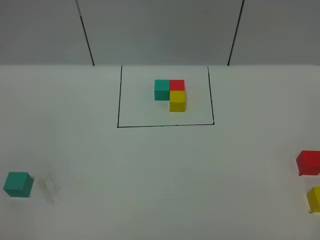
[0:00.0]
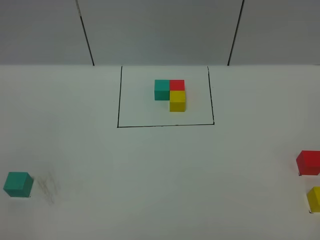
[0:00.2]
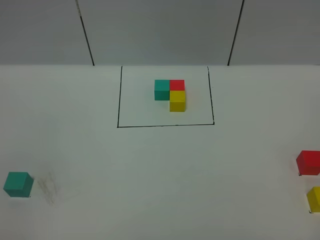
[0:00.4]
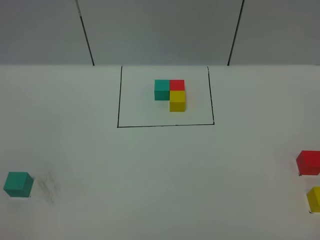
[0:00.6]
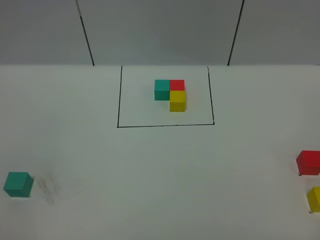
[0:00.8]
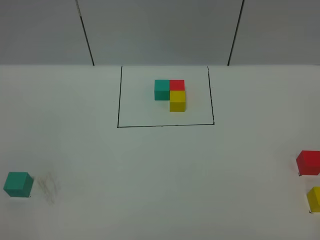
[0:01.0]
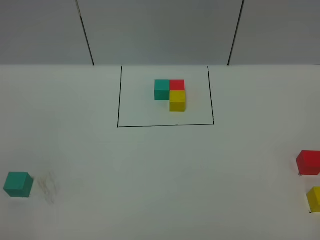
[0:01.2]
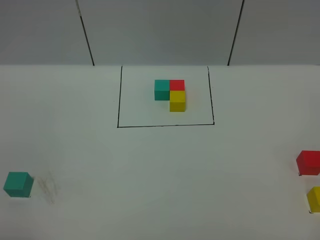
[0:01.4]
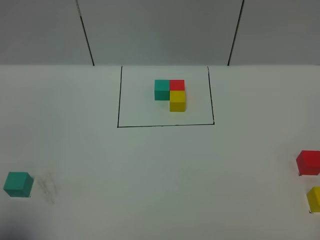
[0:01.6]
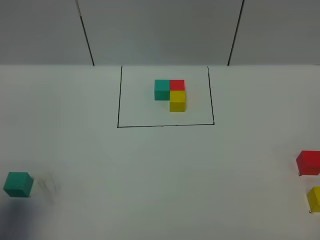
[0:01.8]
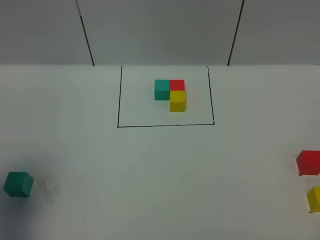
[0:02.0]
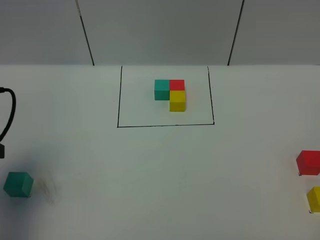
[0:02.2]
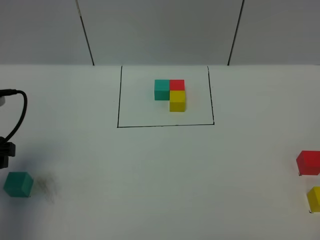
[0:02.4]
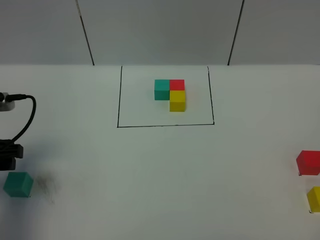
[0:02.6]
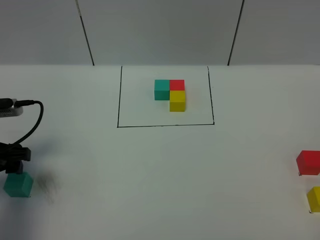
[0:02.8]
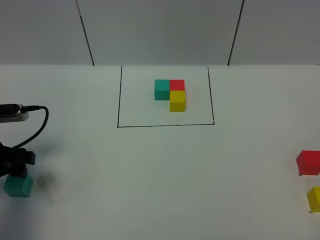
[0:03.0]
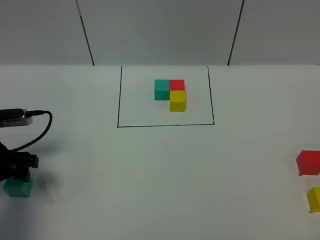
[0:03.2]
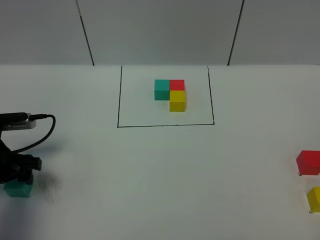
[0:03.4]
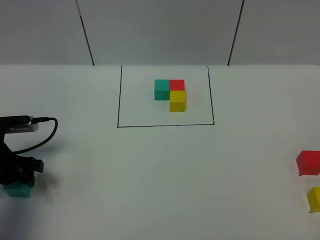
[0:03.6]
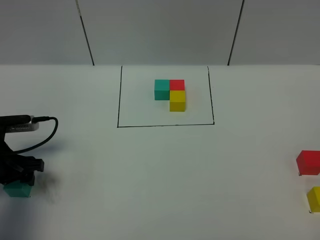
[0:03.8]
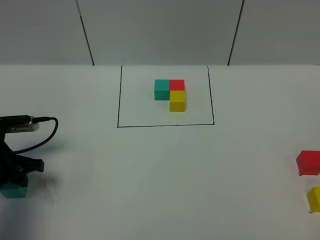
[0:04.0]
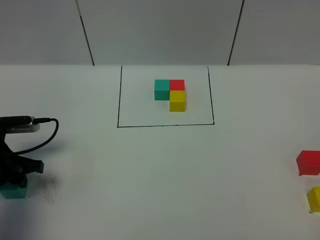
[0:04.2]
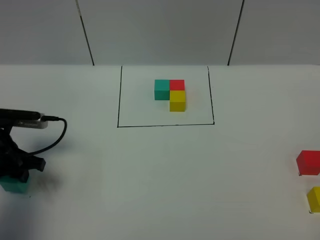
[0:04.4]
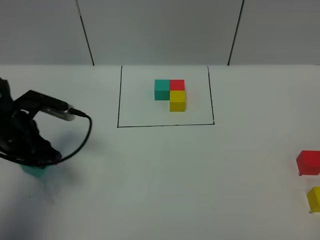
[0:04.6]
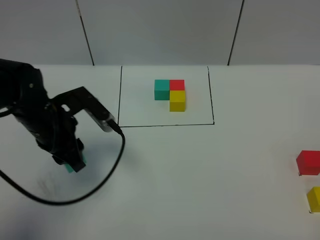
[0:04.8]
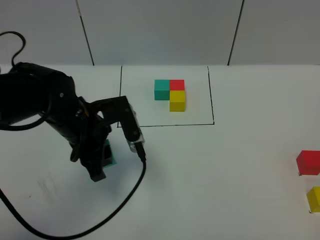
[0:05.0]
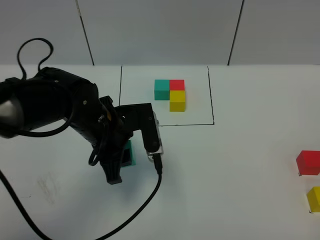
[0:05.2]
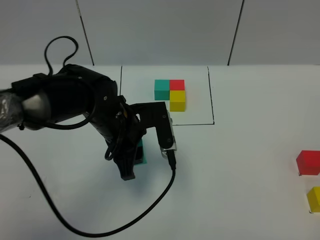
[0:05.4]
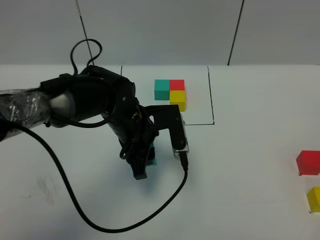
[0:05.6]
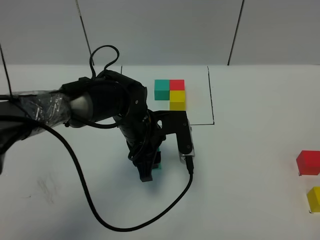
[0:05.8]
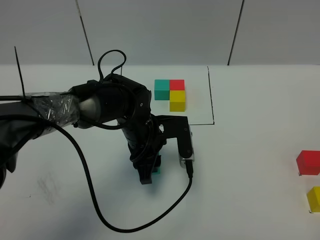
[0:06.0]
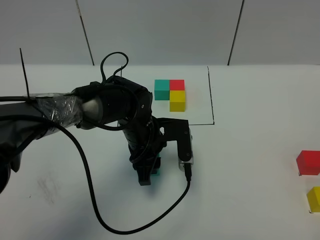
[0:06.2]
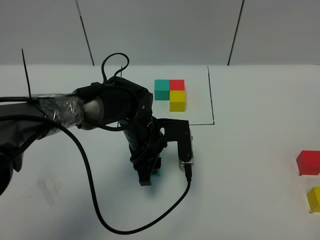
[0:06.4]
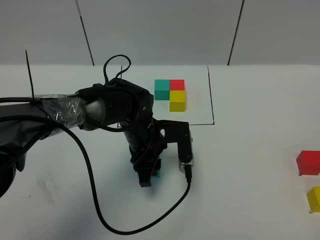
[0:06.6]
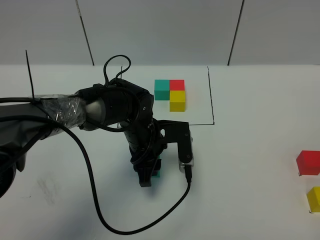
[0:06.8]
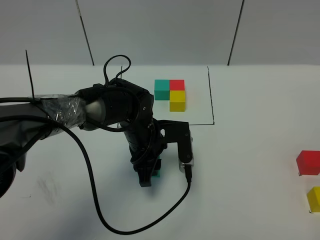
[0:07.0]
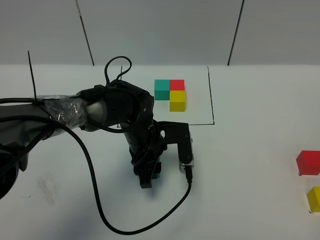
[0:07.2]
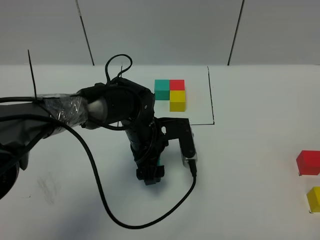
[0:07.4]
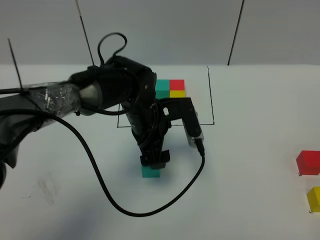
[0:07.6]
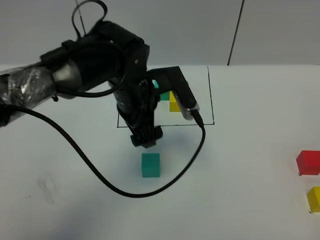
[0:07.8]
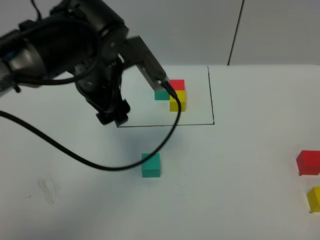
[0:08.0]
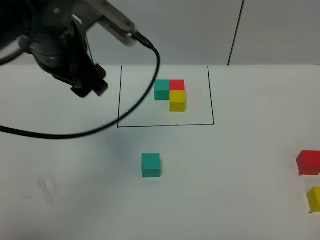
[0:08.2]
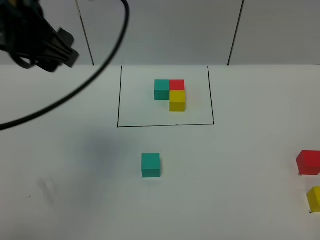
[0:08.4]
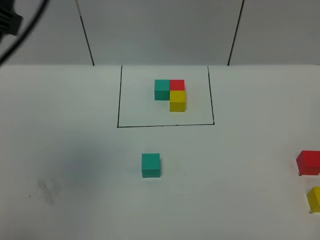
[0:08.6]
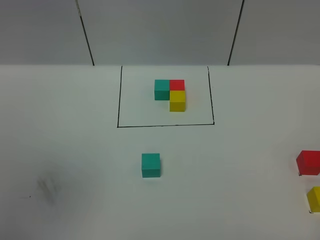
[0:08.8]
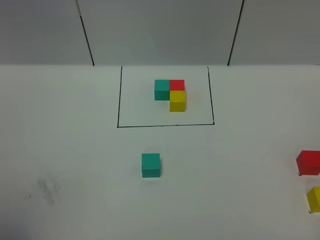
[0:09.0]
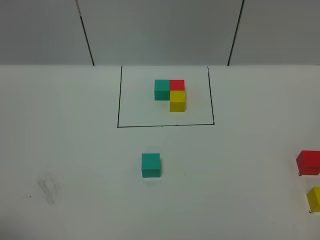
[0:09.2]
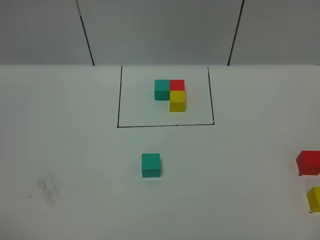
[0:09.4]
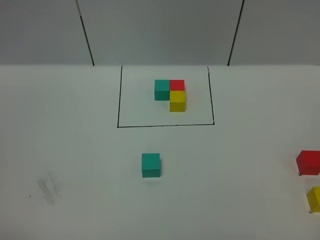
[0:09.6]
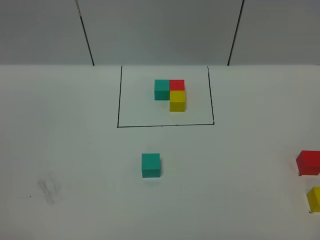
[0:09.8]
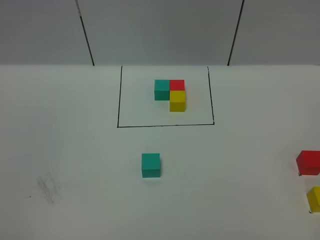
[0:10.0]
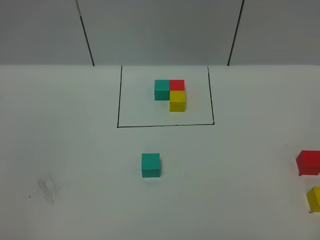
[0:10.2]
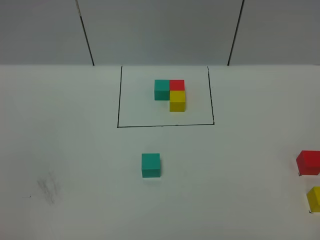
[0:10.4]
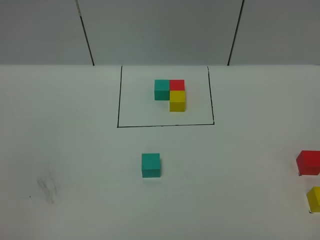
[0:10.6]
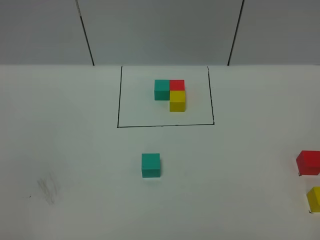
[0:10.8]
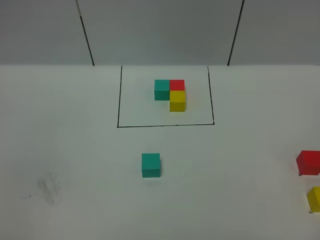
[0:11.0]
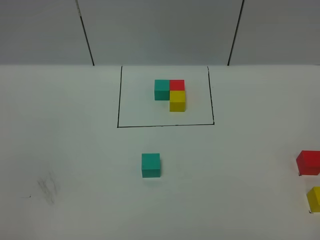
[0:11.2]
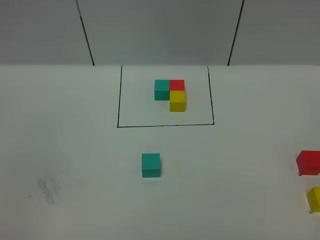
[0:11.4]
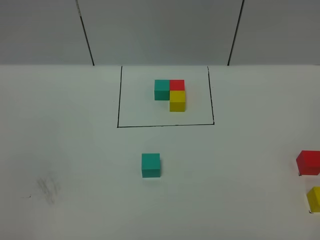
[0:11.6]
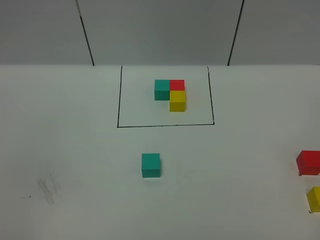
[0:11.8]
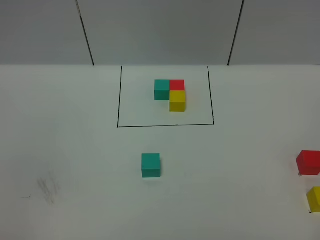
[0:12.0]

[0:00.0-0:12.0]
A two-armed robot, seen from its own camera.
Task of the whole recording: According to the building block template in front, assemble the scattered blocks together.
Step, 0:02.2 to 0:07.6: Put the green cube in the center of the table.
0:00.0 to 0:01.6: The left gripper moves forward, some 10 cm.
0:01.6 to 0:03.0: The left gripper heads forward and downward, covering approximately 25 cm.
0:03.0 to 0:04.4: The left gripper closes up.
0:04.4 to 0:06.0: The left gripper is displaced to the right by approximately 25 cm.
0:06.0 to 0:07.6: The left gripper shifts by about 5 cm, and opens its fingers.
0:07.6 to 0:09.0: The left gripper goes about 50 cm upward, backward and to the left.

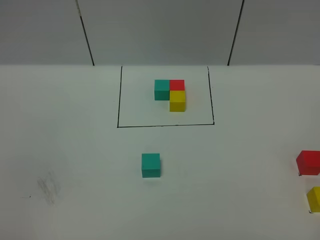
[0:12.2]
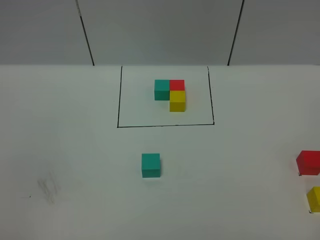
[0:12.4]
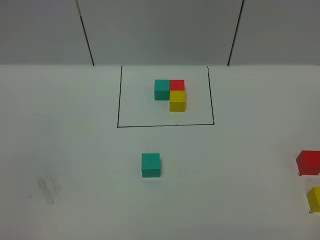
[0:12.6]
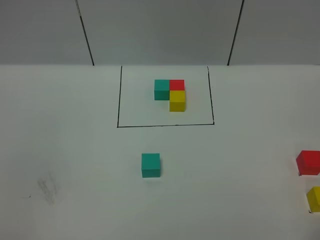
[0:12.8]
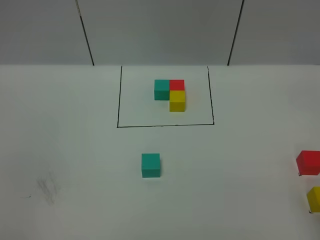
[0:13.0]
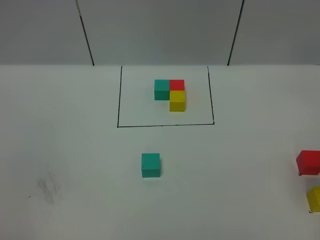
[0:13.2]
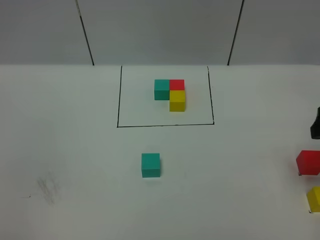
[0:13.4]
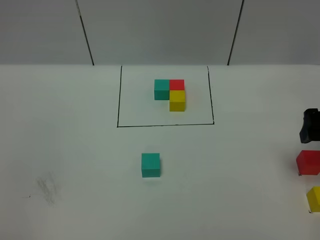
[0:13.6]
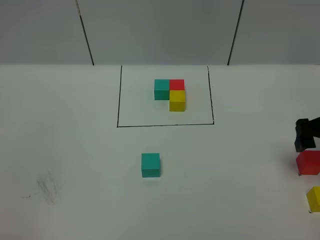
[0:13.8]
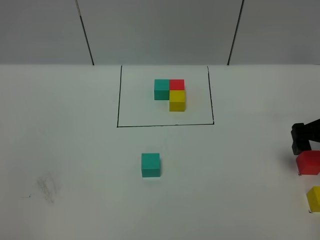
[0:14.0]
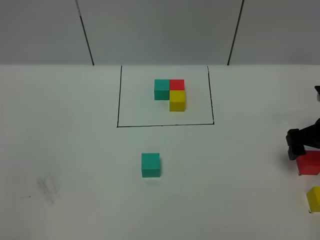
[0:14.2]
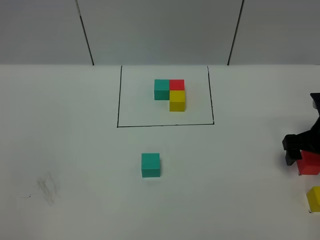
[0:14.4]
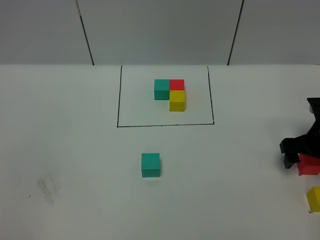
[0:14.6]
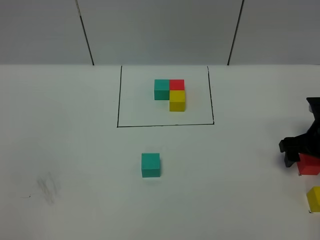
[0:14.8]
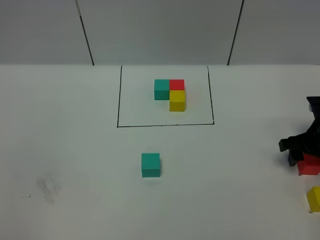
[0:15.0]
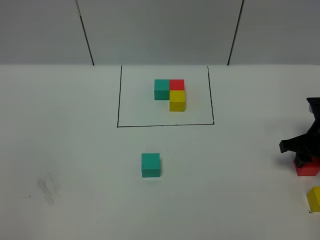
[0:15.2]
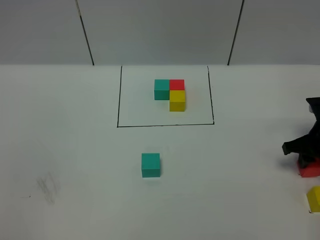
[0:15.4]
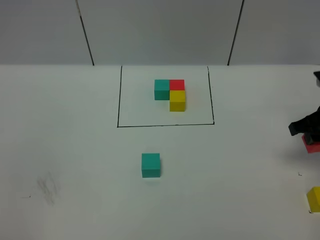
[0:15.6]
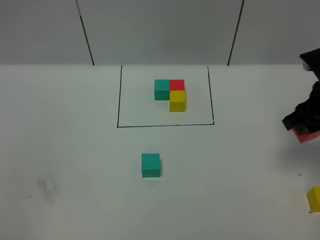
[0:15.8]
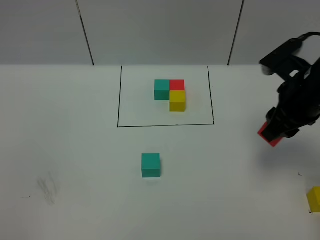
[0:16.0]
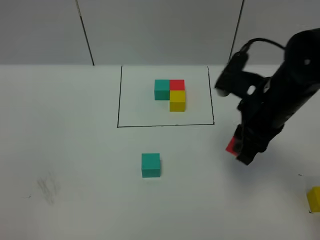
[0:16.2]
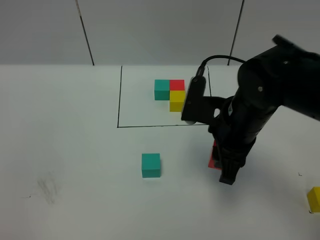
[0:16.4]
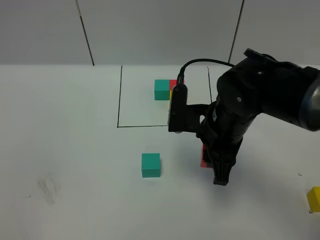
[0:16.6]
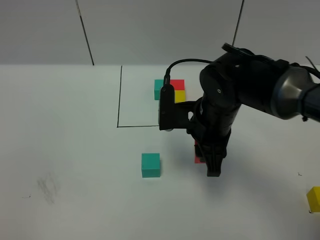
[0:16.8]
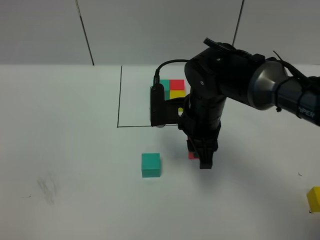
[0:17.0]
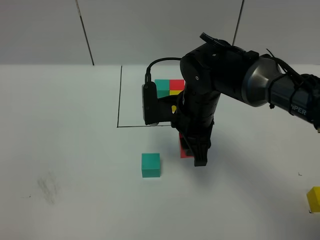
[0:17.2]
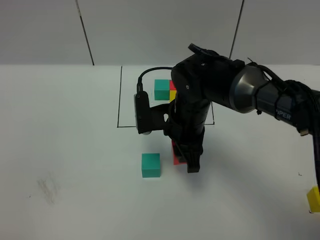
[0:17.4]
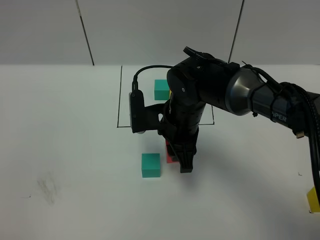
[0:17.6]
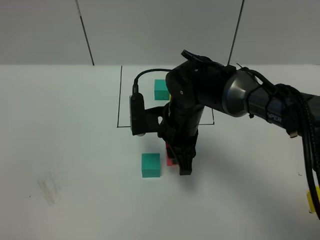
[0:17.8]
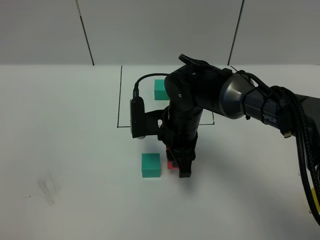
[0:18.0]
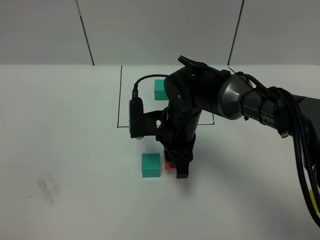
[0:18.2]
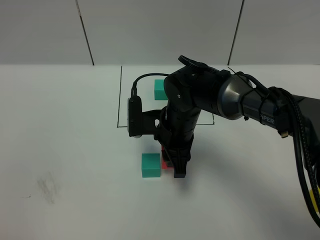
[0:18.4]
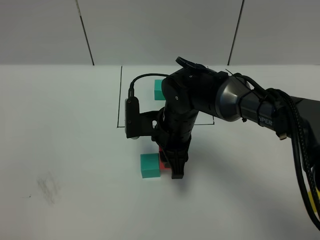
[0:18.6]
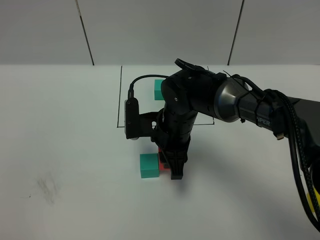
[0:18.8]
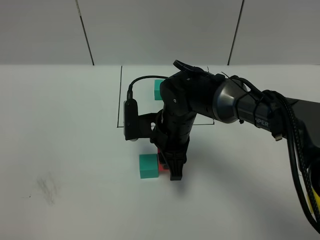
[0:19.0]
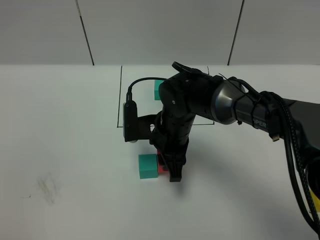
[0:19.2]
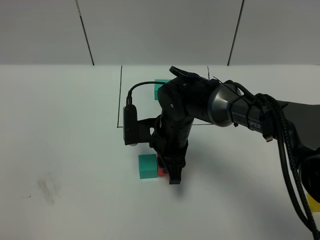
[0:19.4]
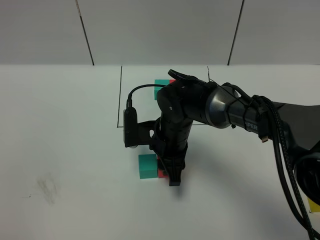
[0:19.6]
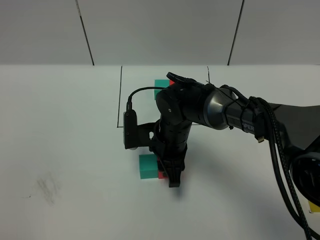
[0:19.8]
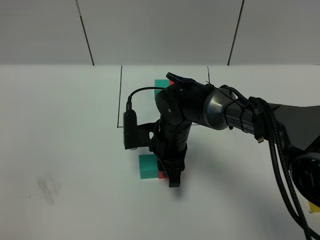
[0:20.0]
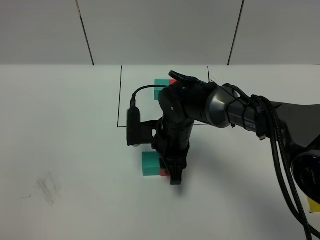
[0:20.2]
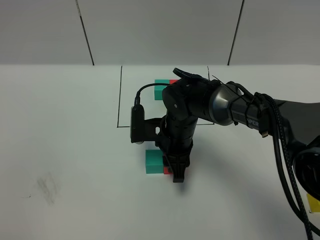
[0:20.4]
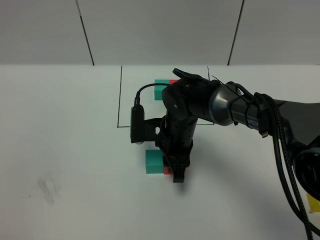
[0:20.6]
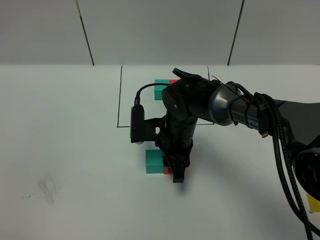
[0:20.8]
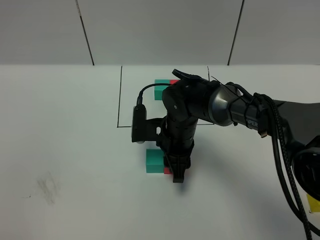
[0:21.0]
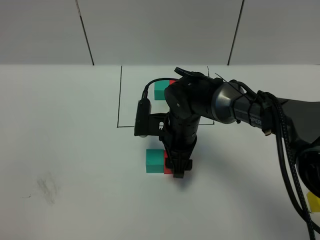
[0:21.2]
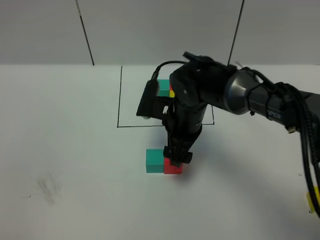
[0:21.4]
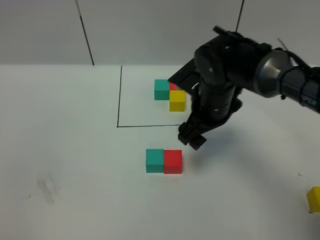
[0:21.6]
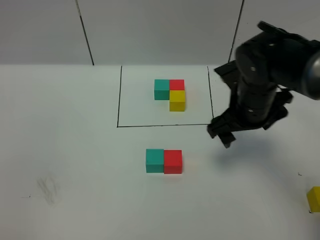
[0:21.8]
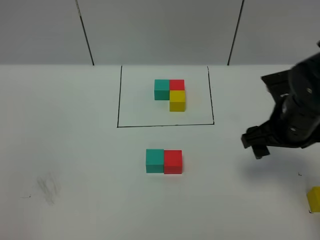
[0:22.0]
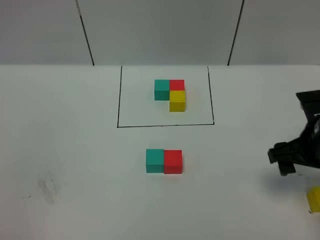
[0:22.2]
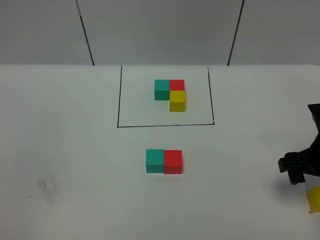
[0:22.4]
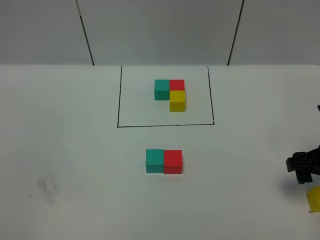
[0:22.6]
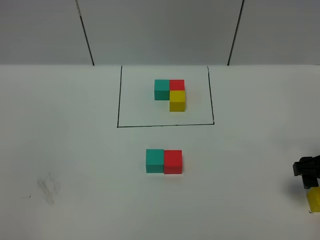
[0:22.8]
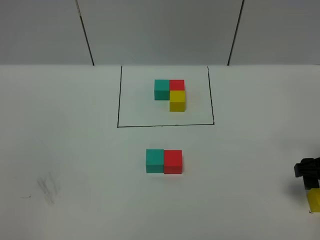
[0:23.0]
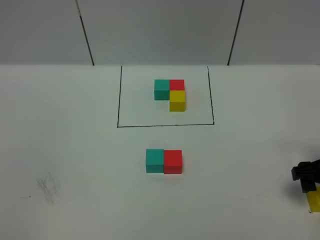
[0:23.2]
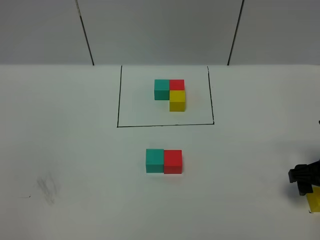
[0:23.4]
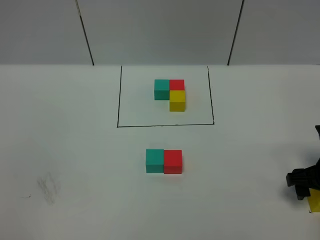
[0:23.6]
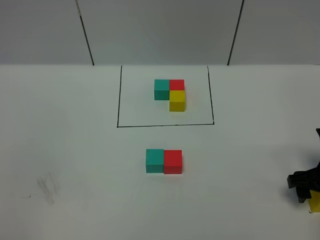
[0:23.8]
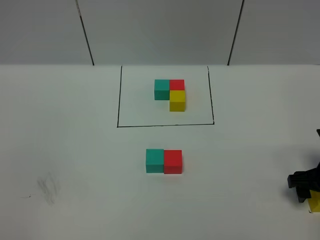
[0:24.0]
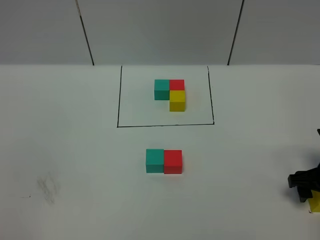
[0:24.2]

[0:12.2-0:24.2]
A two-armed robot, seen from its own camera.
Task of the whole recording: According to the building block template in front, assemble the scattered blocks together.
Step, 0:12.2 to 0:21.4: Put the red cube on the right of the green cube.
0:12.2 to 0:13.8: The right gripper shifts about 30 cm forward, and opens.
0:13.8 to 0:15.2: The right gripper shifts roughly 10 cm downward, and closes.
0:15.2 to 0:16.6: The right gripper is displaced to the left and upward by roughly 25 cm.
0:16.6 to 0:18.2: The right gripper travels to the left and downward by about 10 cm.
0:18.2 to 0:19.8: The grippers stay close to where they were, moving slightly.
0:19.8 to 0:21.2: The right gripper opens up.
0:21.2 to 0:22.6: The right gripper shifts approximately 25 cm to the right.
0:22.6 to 0:24.2: The right gripper heads downward, covering roughly 5 cm.
